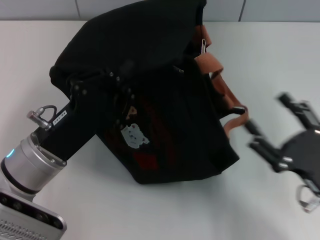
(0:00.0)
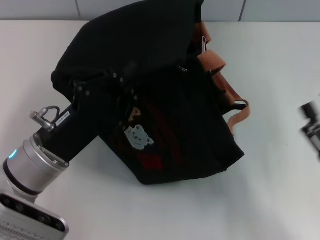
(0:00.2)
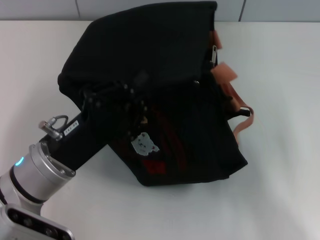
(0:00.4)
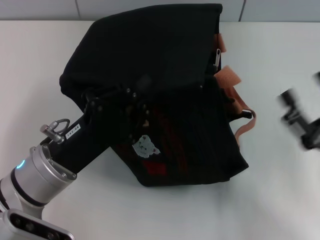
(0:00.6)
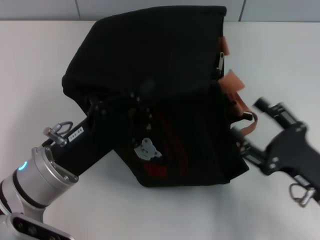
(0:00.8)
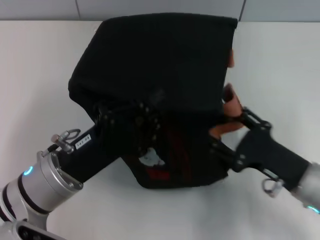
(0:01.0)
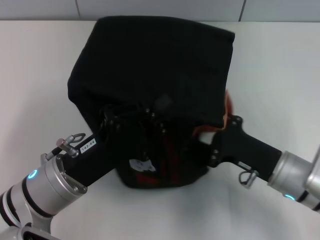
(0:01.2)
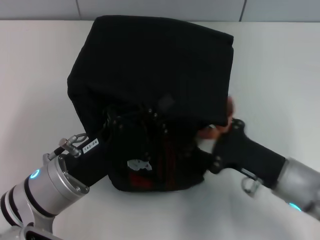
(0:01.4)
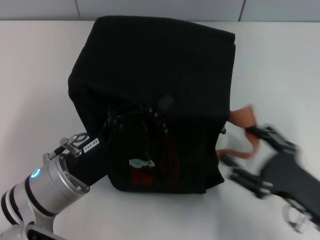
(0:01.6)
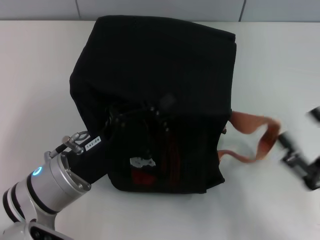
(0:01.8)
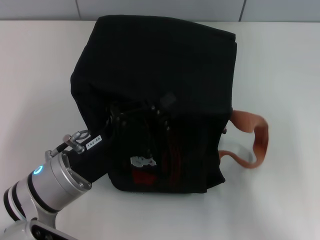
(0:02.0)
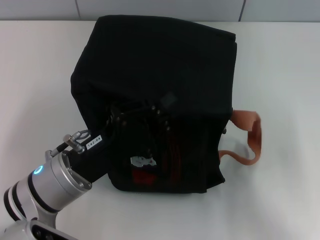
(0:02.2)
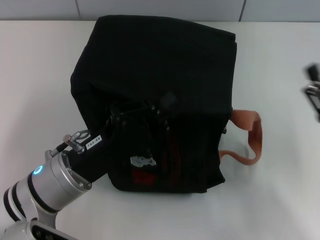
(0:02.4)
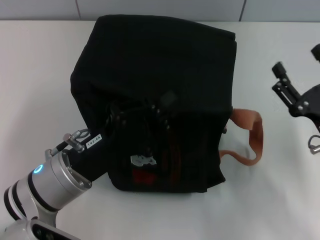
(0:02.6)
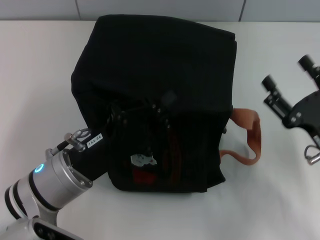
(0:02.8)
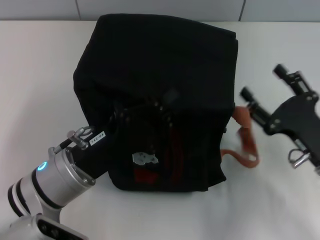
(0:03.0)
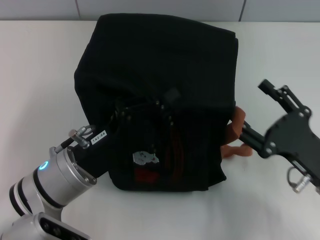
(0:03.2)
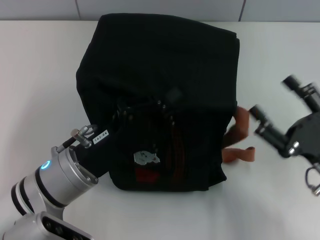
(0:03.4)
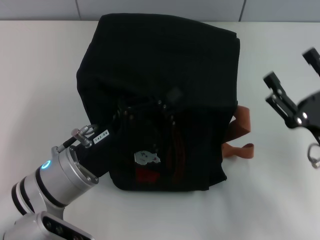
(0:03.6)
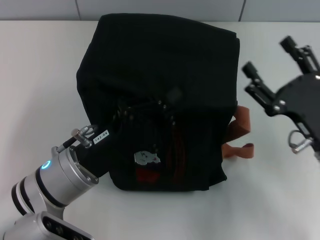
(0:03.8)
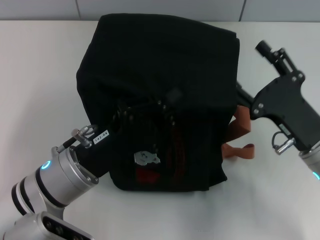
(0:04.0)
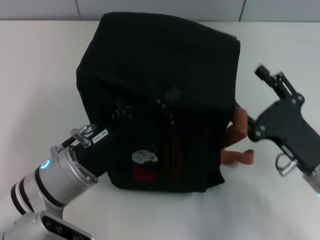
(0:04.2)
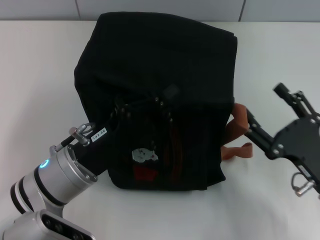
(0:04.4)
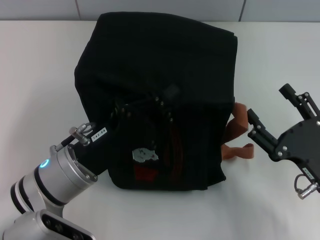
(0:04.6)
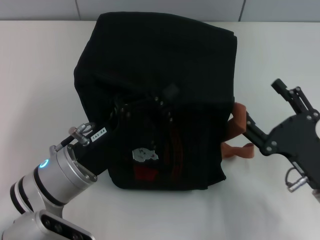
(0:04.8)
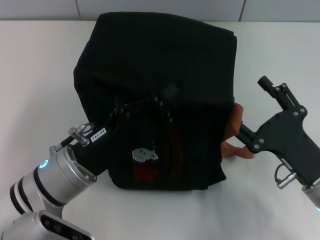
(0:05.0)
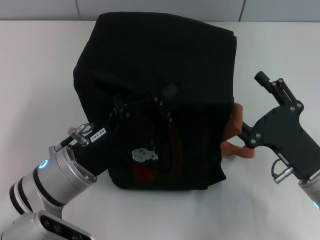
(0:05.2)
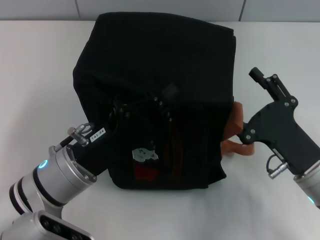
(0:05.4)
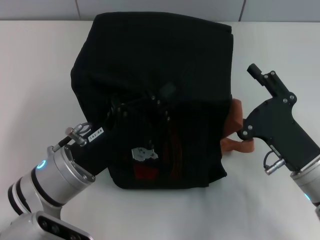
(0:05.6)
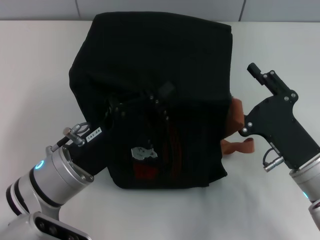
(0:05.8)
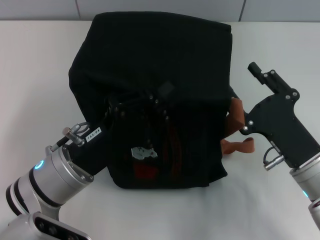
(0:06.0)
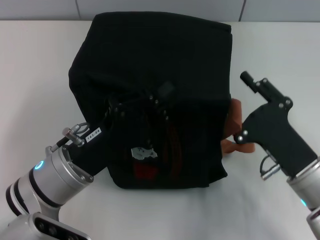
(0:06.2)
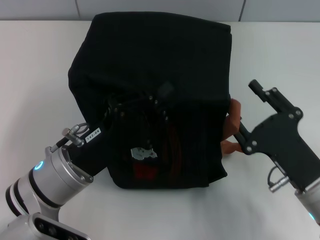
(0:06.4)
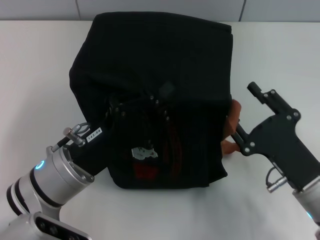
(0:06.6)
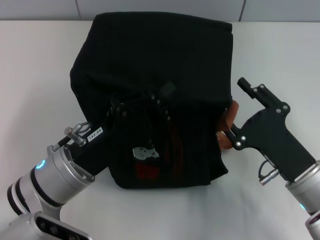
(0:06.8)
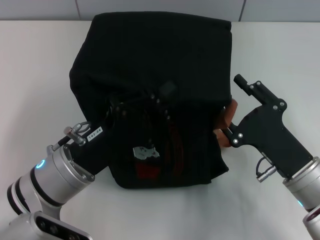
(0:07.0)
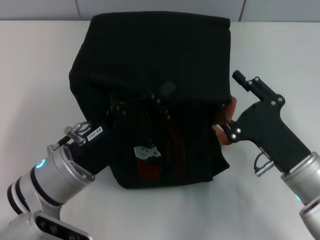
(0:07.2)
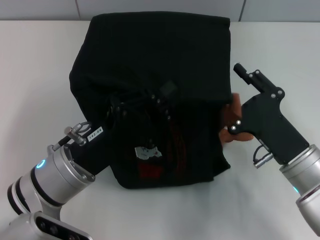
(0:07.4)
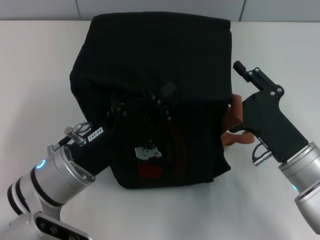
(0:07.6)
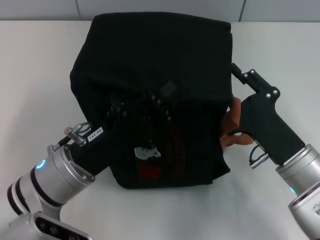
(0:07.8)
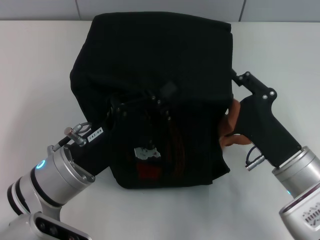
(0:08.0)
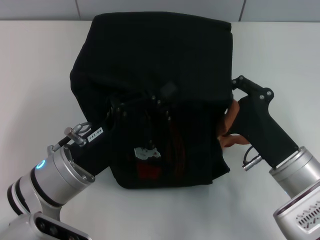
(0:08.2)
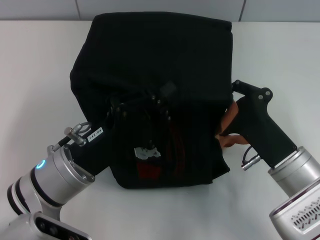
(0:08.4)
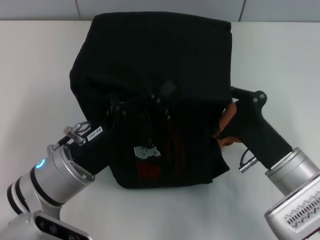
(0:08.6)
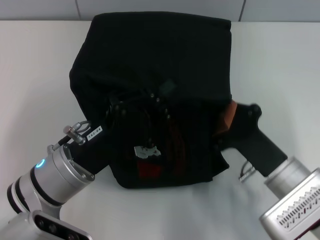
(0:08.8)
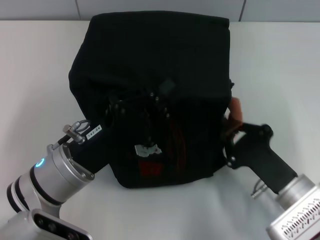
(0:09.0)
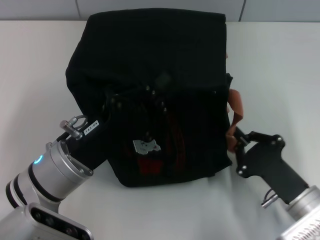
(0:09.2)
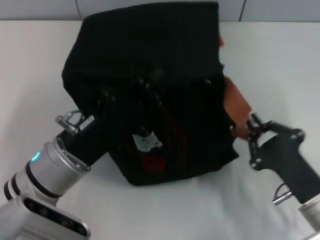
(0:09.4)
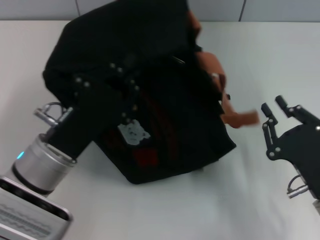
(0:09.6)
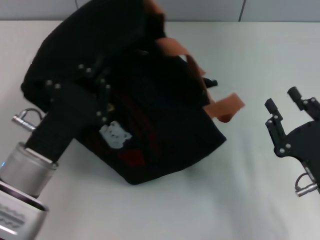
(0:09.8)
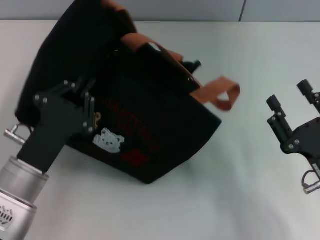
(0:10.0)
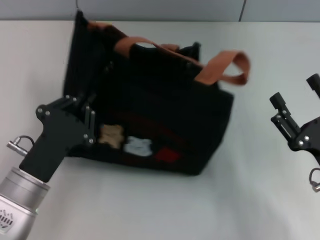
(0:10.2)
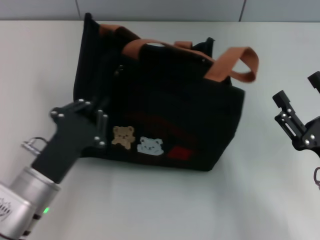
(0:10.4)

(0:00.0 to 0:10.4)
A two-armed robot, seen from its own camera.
Step, 0:00.0 - 0:09.2: Pull open the zipper with your right hand.
0:00.0 - 0:01.4: The right gripper is displaced forward by some 5 cm.
0:01.4 - 0:03.0: The right gripper moves to the right, about 5 cm, and reaches roughly 10 cm backward, then returns.
0:03.0 - 0:07.4: There are only small adjustments of the grippers.
0:07.4 - 0:09.0: The right gripper closes.
0:09.0 - 0:10.4: The right gripper travels to the right by roughly 5 cm, and opens. Meanwhile the left gripper ends up approximately 5 cm from where it was.

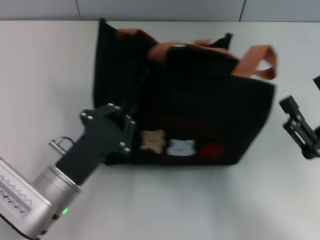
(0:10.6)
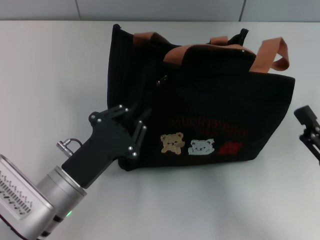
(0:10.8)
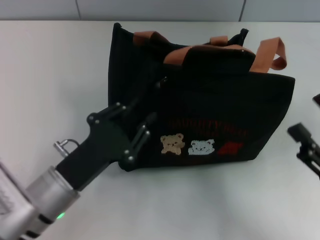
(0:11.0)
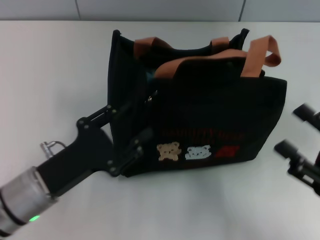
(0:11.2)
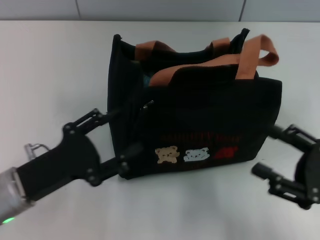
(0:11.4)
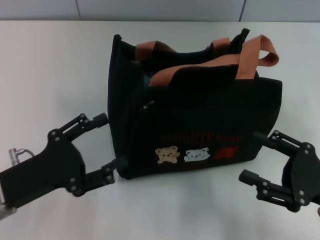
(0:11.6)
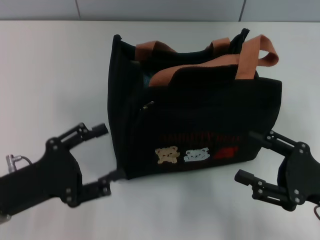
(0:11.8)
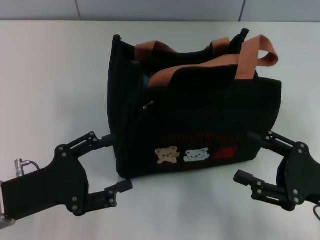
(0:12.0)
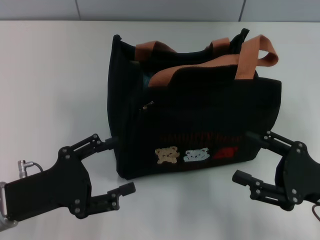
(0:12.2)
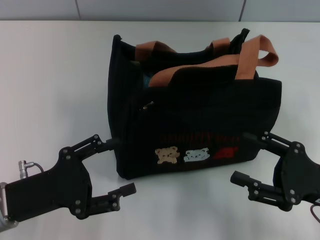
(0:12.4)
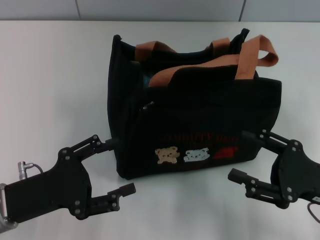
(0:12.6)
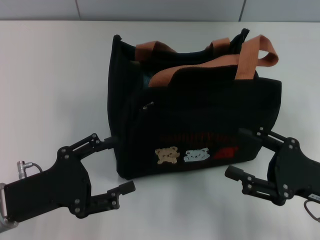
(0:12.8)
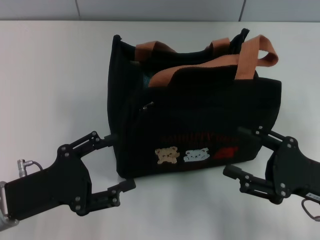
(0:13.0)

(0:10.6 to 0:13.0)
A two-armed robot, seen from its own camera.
0:10.6 - 0:11.8: The left gripper shifts some 10 cm to the left, and opens.
0:11.8 - 0:13.0: The grippers stay close to where they were, moving slightly.

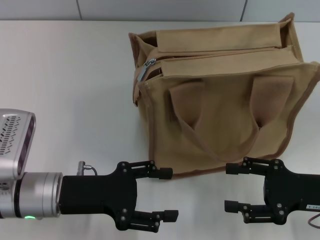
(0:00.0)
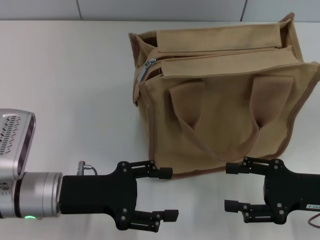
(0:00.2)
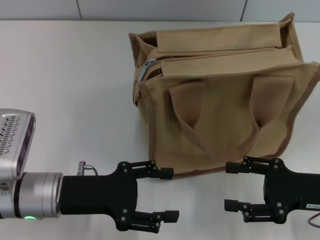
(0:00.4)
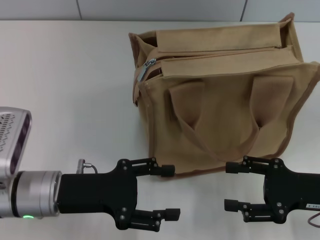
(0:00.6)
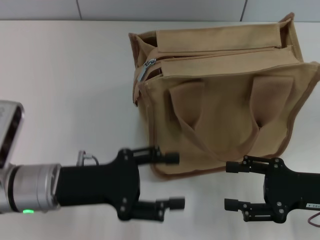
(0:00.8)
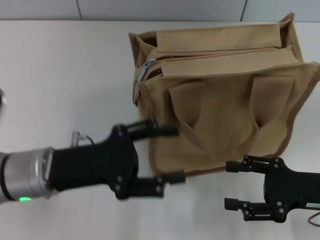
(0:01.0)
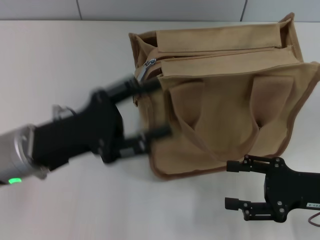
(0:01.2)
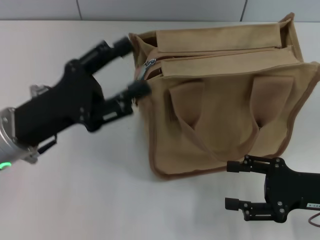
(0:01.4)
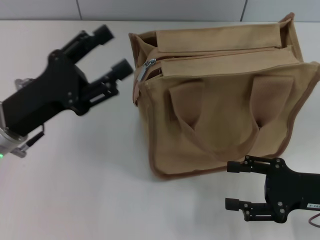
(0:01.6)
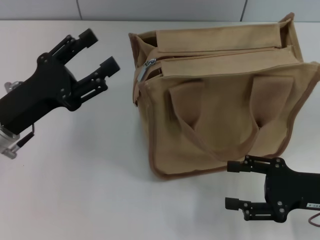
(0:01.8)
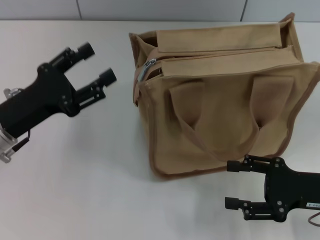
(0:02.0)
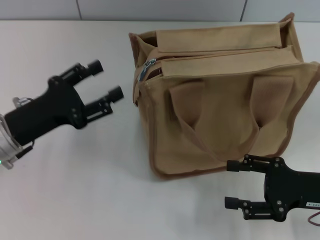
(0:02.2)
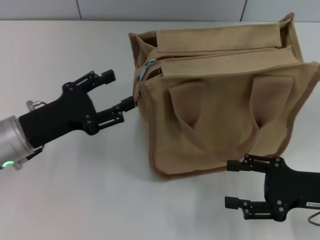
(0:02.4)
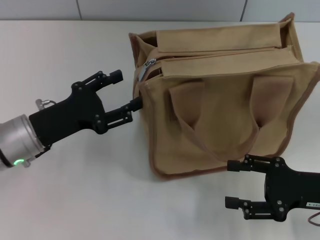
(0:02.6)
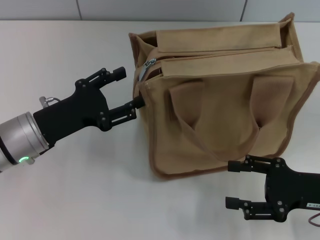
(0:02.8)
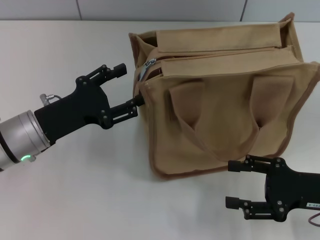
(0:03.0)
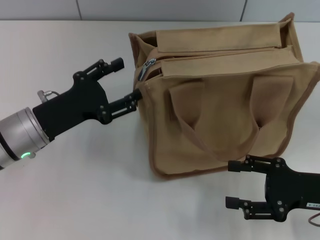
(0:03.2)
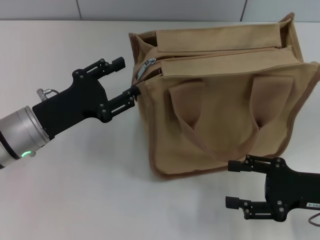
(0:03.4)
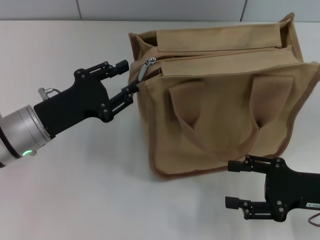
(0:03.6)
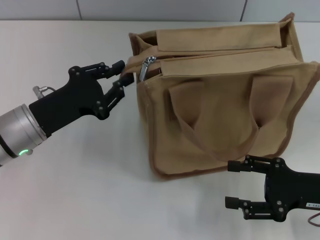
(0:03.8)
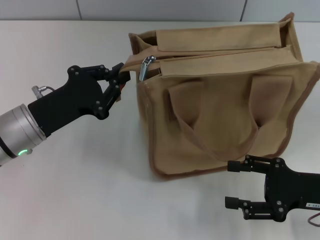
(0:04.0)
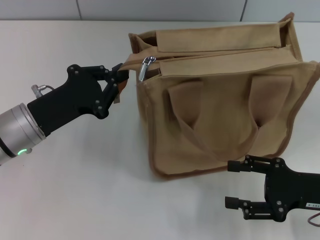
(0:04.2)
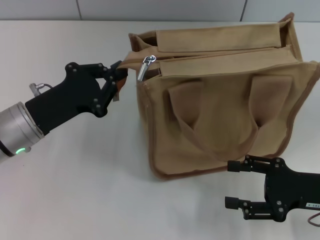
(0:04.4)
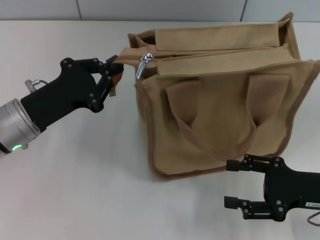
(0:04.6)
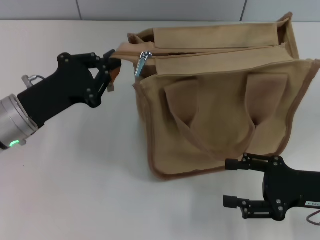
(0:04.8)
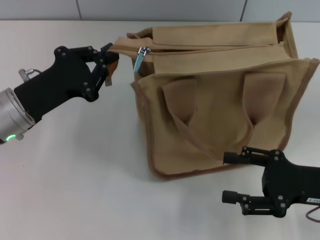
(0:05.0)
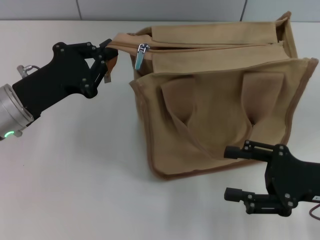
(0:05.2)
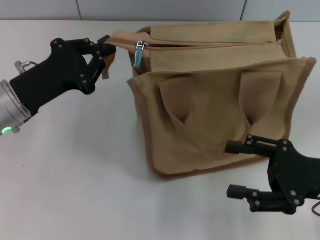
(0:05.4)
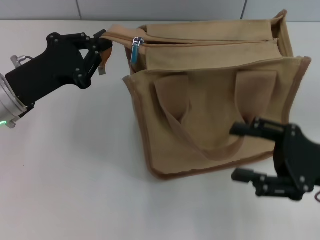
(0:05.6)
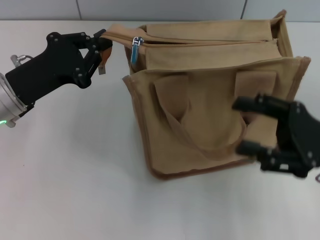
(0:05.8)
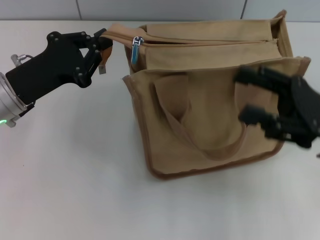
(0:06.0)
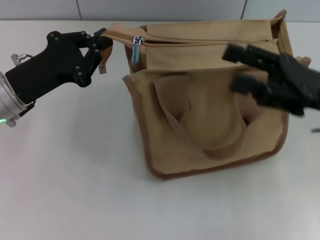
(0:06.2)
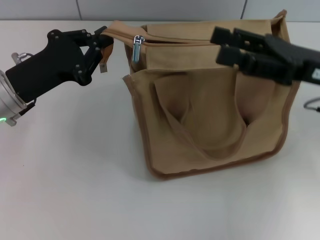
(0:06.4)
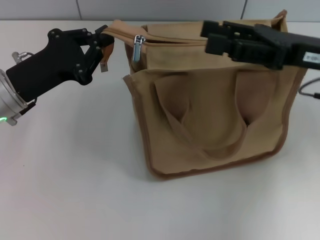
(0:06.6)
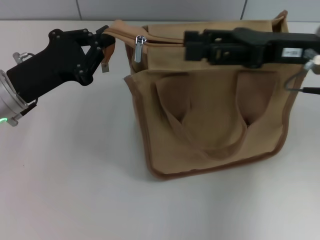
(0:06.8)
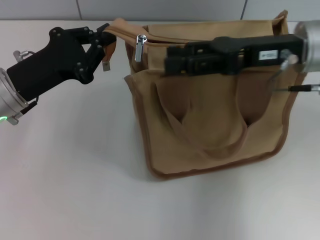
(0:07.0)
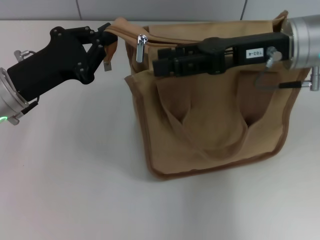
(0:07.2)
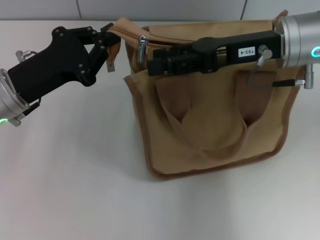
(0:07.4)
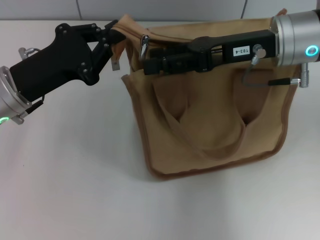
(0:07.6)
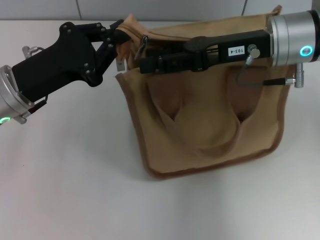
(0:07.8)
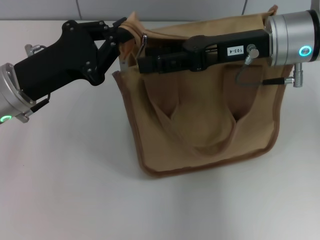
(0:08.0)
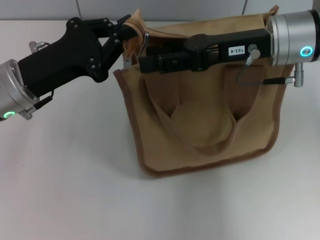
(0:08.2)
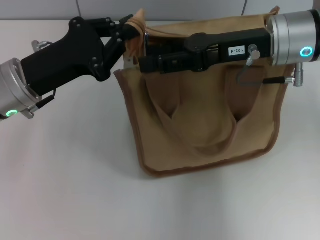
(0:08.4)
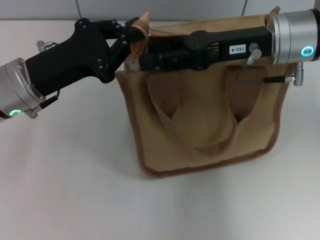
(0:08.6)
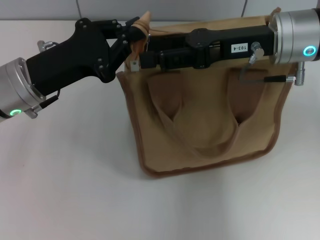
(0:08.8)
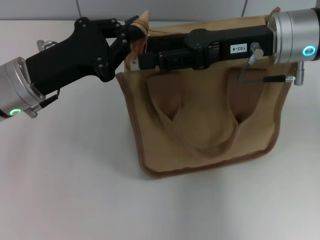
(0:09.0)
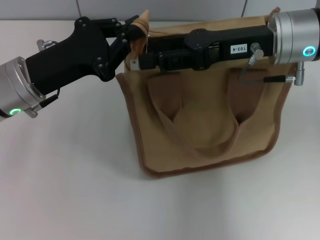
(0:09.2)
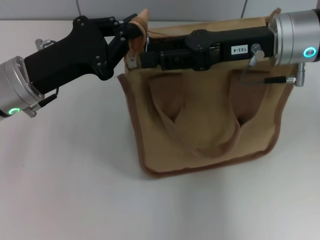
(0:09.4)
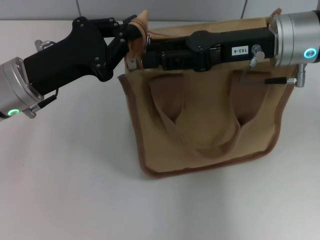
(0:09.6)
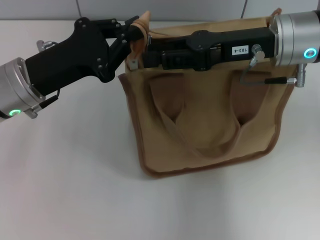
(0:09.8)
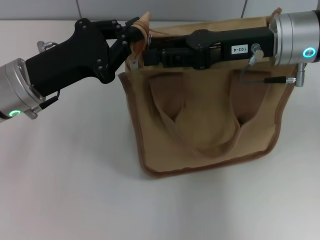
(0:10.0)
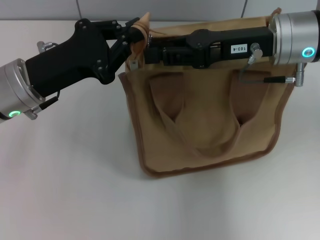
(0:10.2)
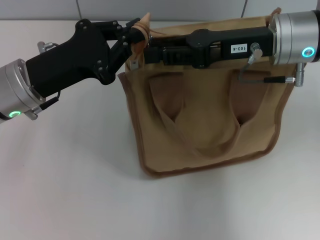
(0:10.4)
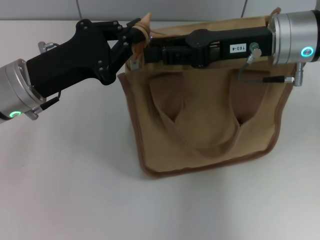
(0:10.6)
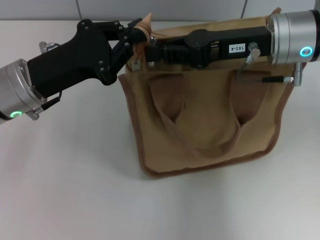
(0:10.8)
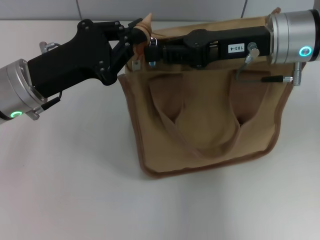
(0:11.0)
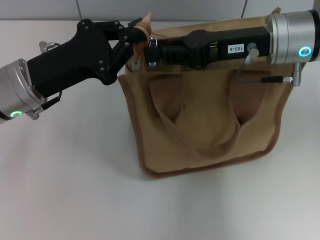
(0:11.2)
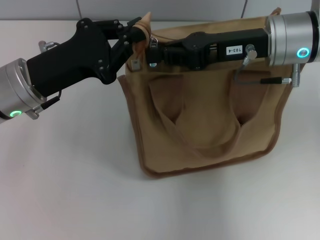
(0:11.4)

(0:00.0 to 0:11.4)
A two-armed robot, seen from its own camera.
0:00.0 - 0:01.4: The left gripper goes some 5 cm upward.
0:02.8 - 0:04.2: The left gripper closes its fingers.
0:05.6 - 0:07.2: The right gripper shifts some 20 cm forward, upward and to the left.
0:08.6 - 0:10.0: The right gripper closes up.
0:10.0 - 0:11.4: The right gripper closes its fingers.
